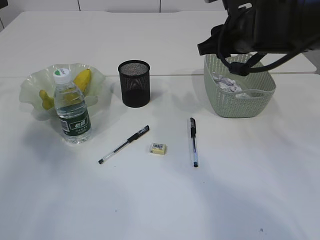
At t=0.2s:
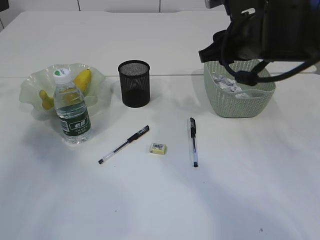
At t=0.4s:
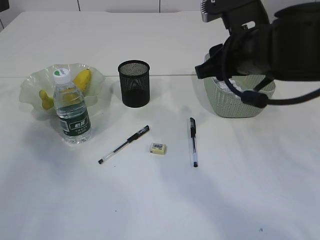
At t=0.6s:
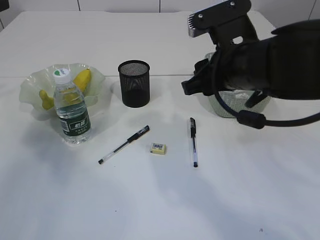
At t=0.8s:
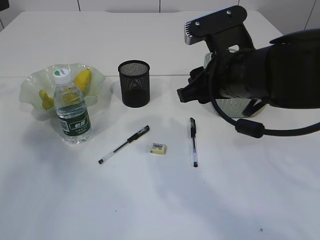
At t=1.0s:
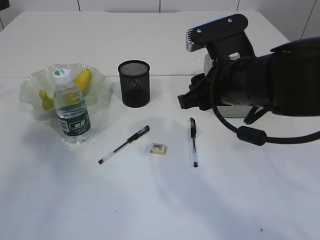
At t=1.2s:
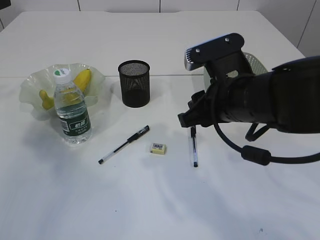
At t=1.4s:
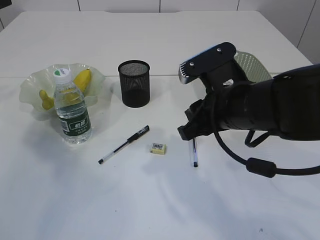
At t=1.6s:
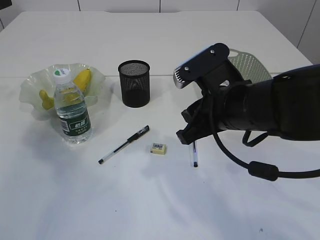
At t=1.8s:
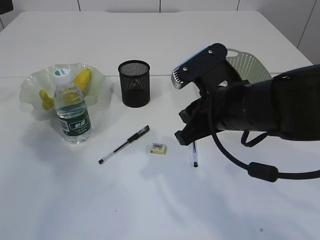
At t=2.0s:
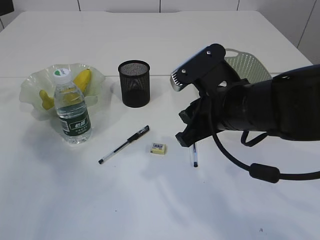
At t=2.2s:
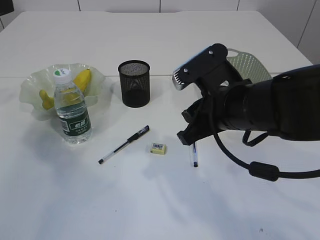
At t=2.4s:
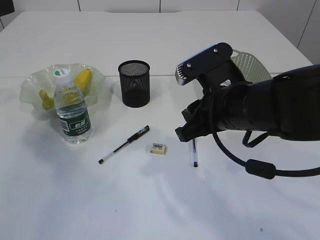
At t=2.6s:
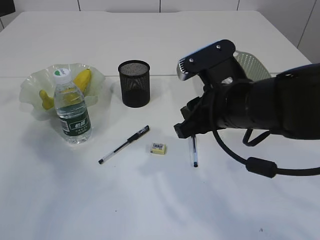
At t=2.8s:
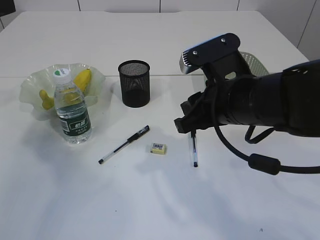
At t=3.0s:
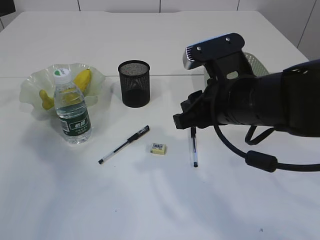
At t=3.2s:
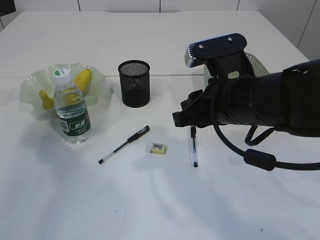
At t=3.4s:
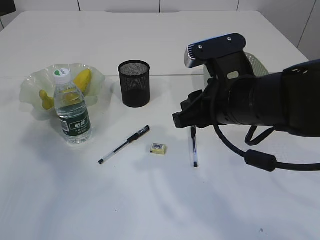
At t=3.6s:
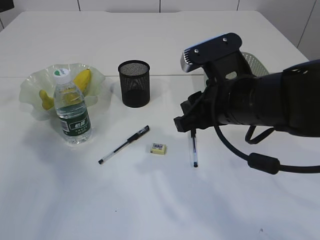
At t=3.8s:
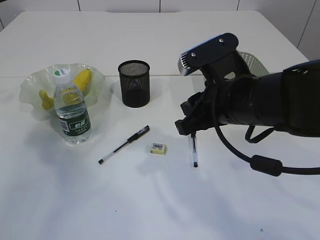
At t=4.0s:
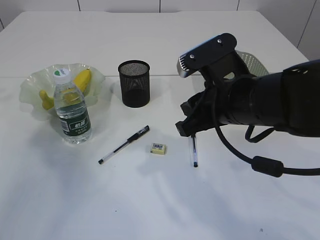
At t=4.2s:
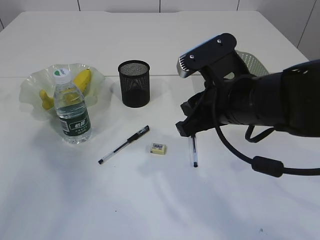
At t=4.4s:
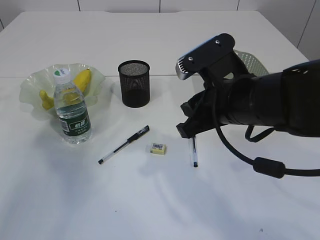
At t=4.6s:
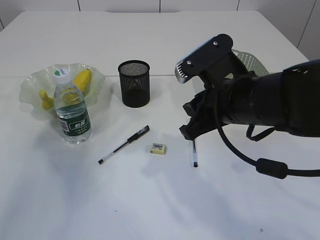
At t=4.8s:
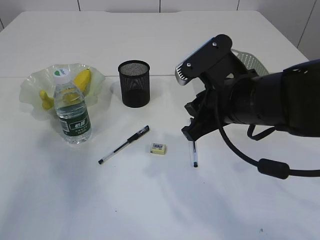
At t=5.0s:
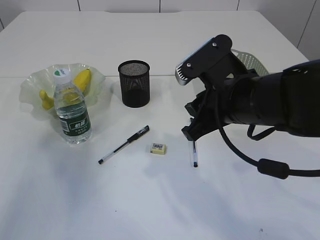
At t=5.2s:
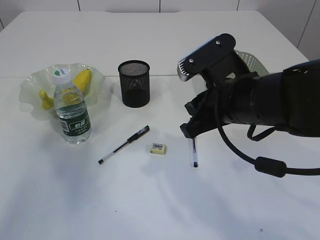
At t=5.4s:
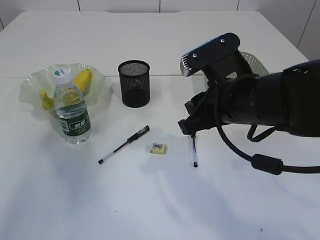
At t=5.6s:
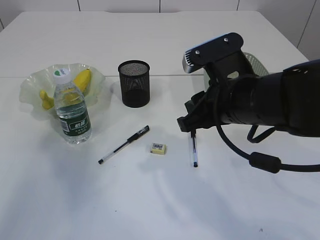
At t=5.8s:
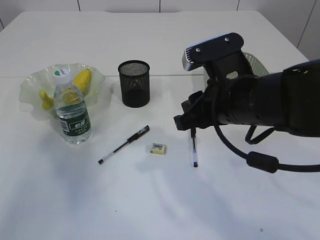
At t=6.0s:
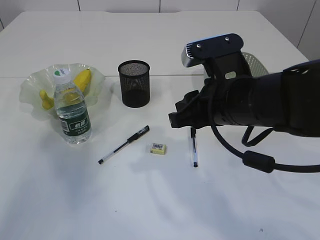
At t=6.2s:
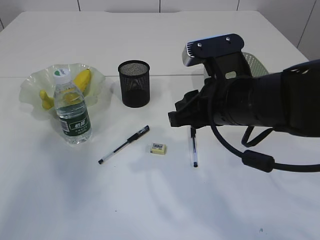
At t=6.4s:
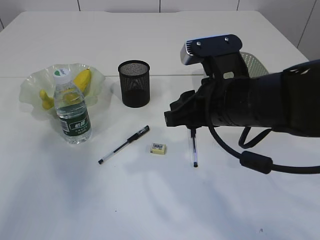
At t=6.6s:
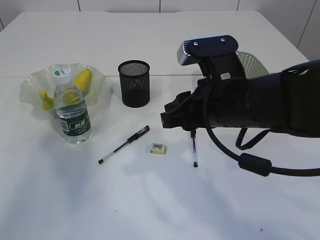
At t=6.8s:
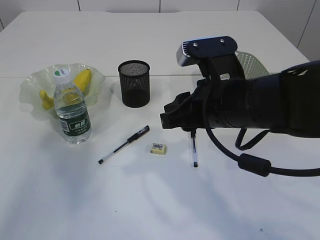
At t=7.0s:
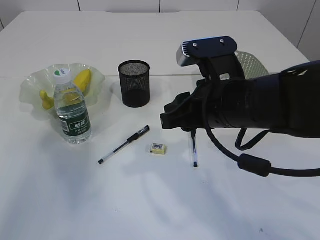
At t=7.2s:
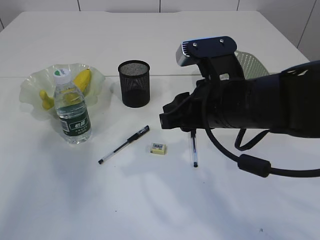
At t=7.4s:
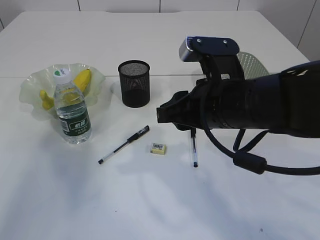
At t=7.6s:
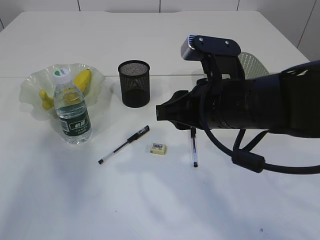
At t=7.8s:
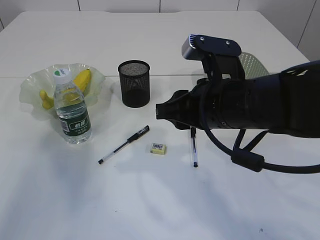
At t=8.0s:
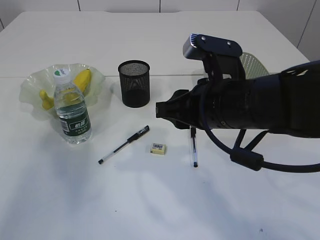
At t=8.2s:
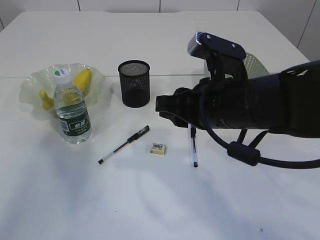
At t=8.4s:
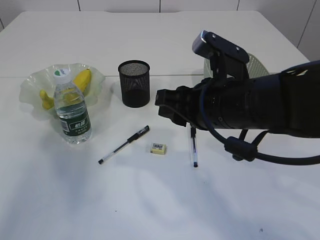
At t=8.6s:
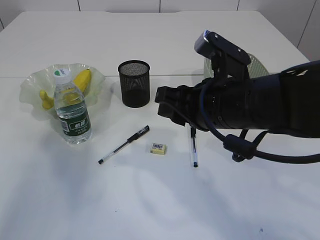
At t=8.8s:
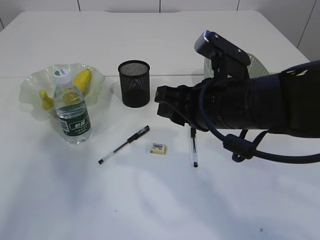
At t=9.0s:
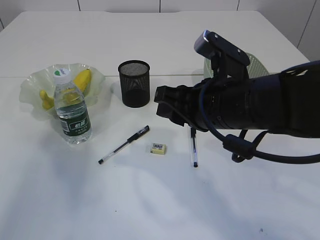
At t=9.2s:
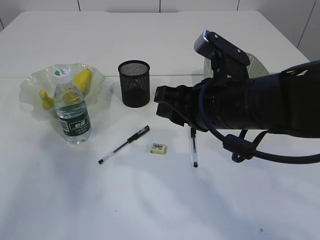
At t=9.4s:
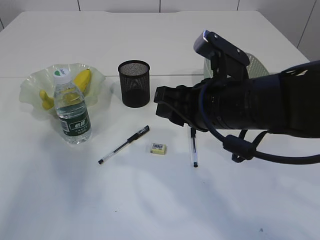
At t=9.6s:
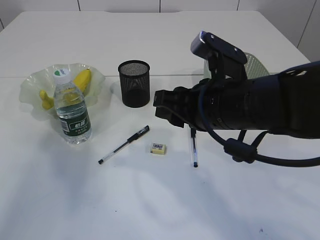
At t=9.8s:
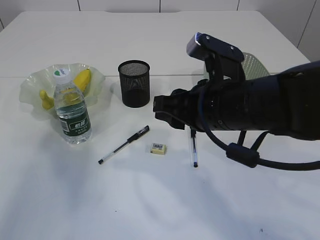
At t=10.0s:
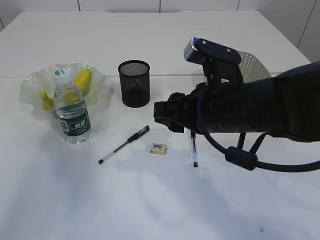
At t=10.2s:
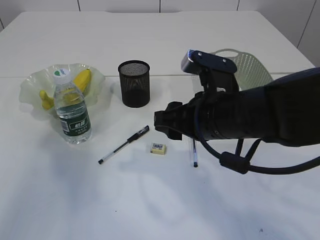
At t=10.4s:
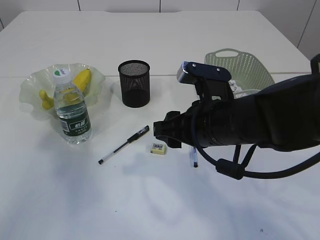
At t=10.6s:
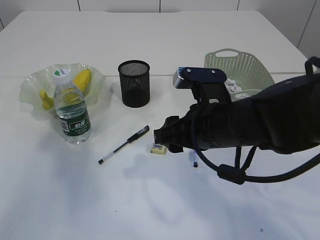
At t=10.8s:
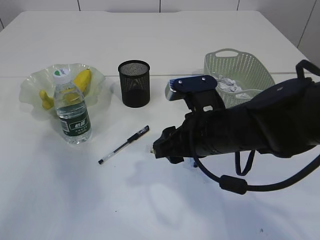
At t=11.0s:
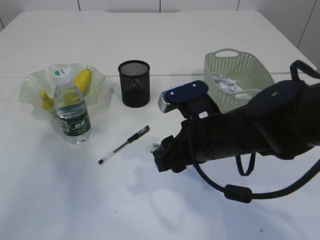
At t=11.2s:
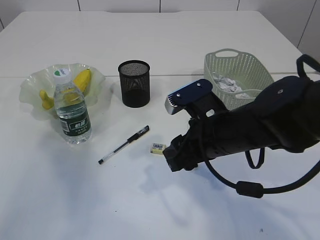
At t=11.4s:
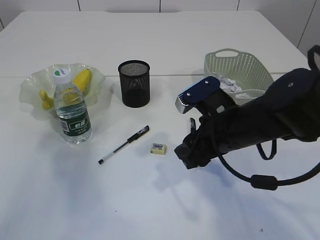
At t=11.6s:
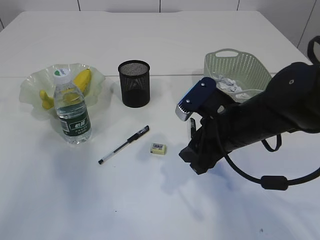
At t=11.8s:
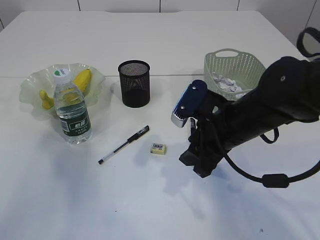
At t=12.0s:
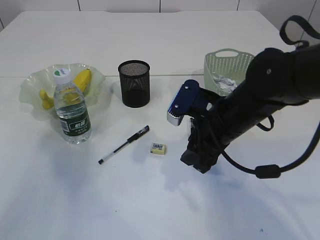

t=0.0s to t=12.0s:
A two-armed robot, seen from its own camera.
t=0.0s to t=1.6s: The right gripper is displaced backward and downward by approximately 10 cm.
t=1.6s to t=3.0s: The grippers move only a little.
t=3.0s to t=4.4s: The left gripper heads upward, covering roughly 5 cm.
t=4.4s to t=6.0s: The grippers stay close to where they were, moving slightly.
t=6.0s to t=7.6s: The grippers stay close to where they were, moving slightly.
t=9.0s to t=10.4s: The grippers stay close to where they were, moving slightly.

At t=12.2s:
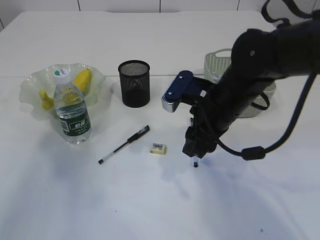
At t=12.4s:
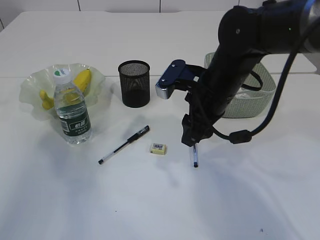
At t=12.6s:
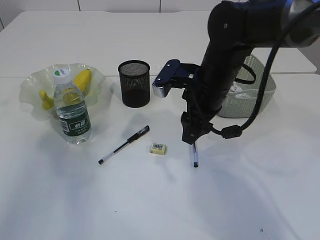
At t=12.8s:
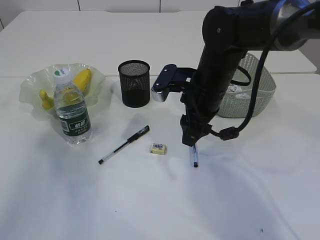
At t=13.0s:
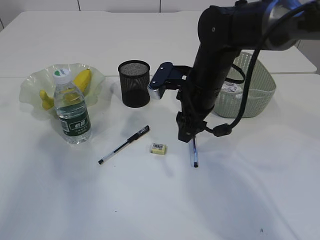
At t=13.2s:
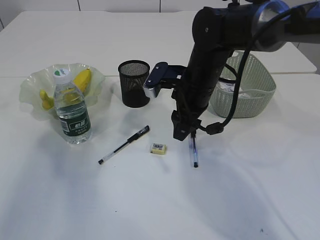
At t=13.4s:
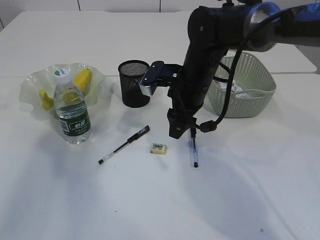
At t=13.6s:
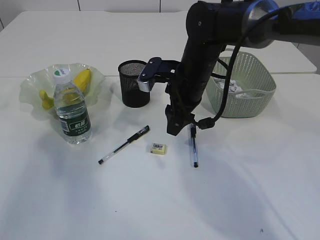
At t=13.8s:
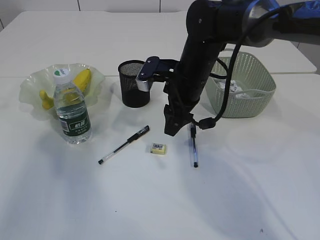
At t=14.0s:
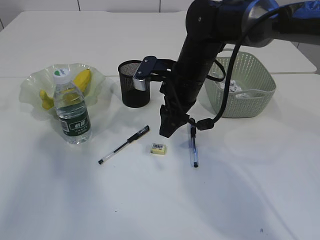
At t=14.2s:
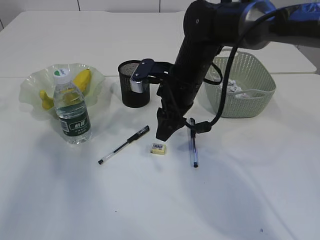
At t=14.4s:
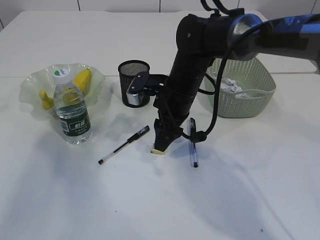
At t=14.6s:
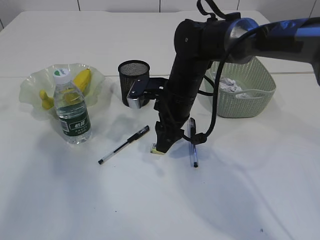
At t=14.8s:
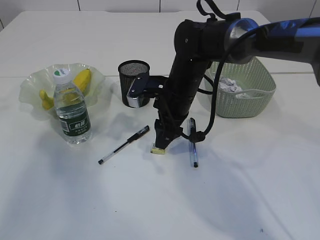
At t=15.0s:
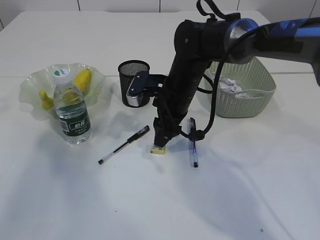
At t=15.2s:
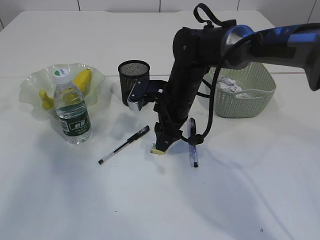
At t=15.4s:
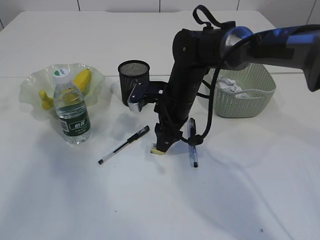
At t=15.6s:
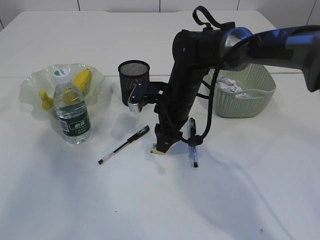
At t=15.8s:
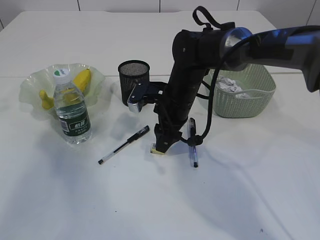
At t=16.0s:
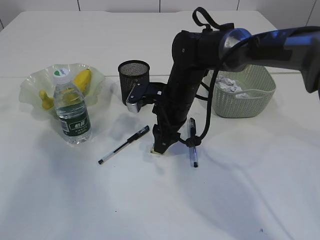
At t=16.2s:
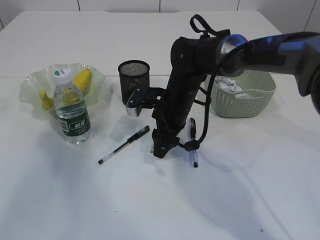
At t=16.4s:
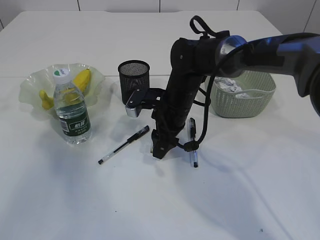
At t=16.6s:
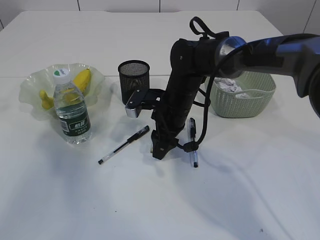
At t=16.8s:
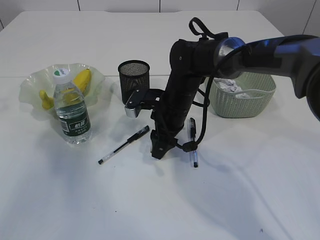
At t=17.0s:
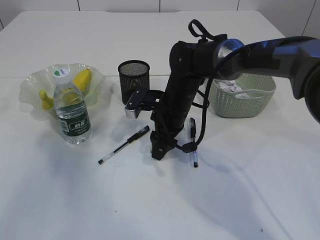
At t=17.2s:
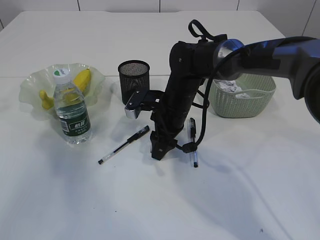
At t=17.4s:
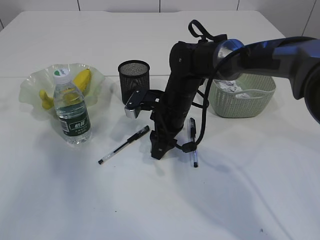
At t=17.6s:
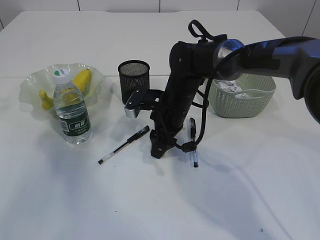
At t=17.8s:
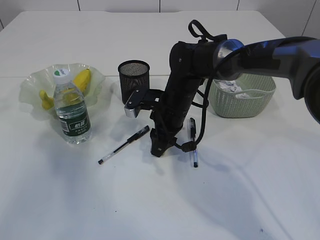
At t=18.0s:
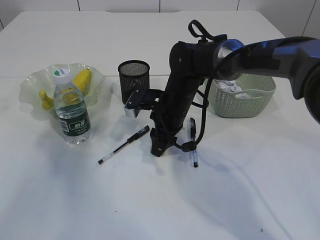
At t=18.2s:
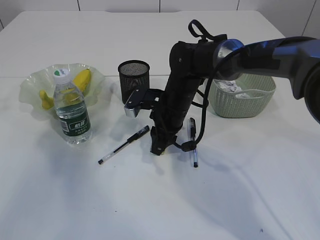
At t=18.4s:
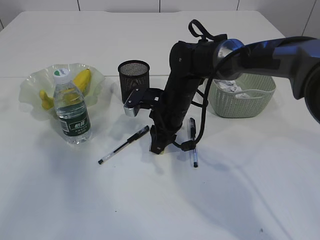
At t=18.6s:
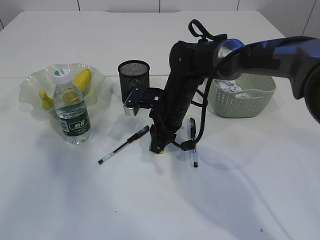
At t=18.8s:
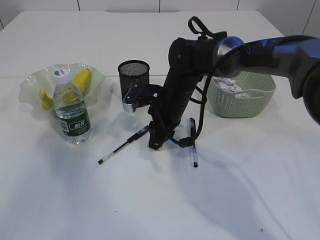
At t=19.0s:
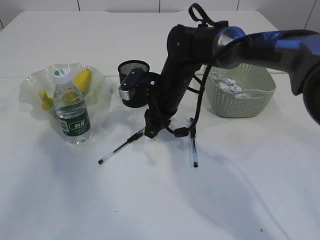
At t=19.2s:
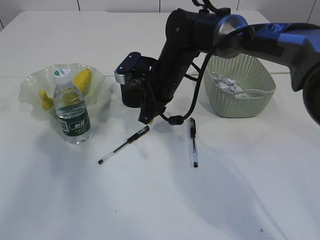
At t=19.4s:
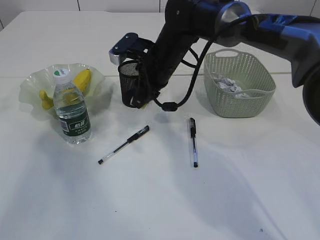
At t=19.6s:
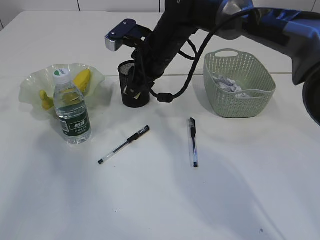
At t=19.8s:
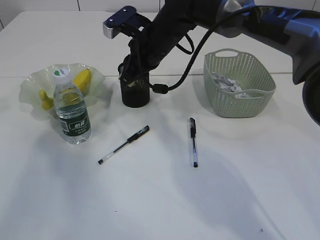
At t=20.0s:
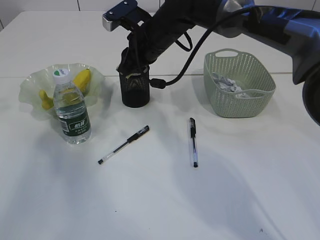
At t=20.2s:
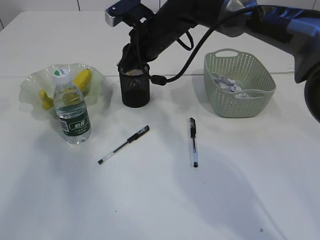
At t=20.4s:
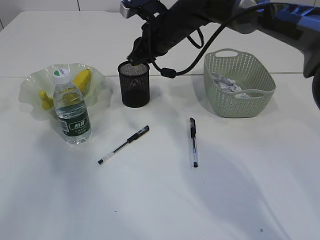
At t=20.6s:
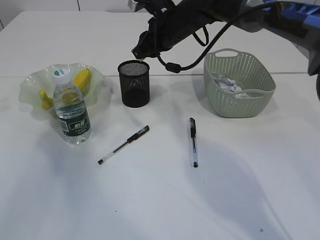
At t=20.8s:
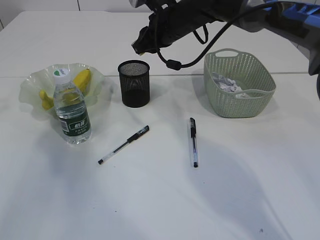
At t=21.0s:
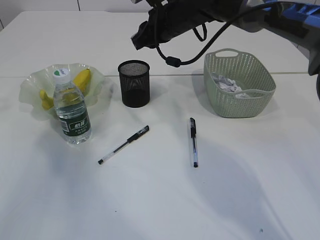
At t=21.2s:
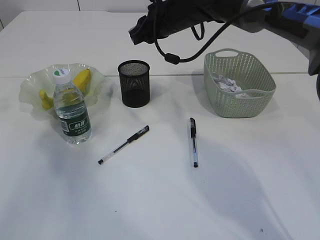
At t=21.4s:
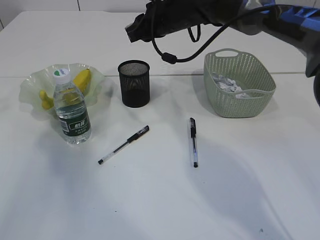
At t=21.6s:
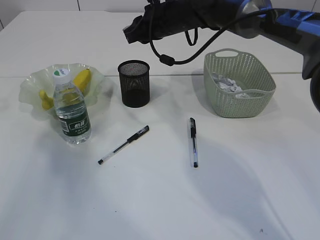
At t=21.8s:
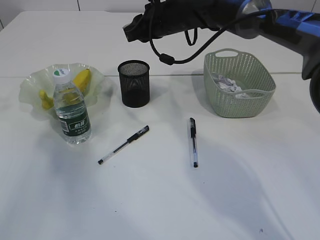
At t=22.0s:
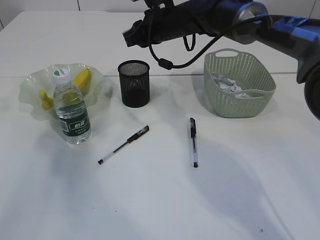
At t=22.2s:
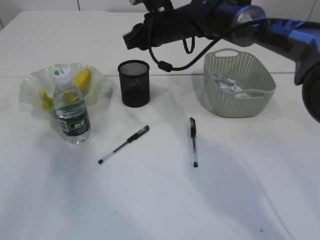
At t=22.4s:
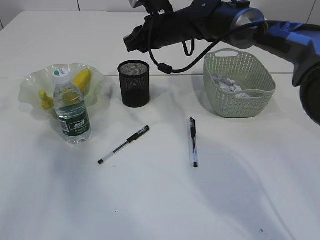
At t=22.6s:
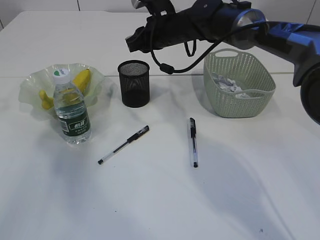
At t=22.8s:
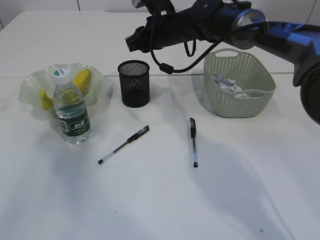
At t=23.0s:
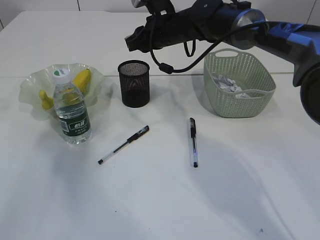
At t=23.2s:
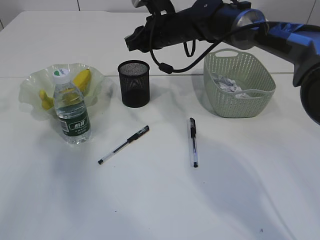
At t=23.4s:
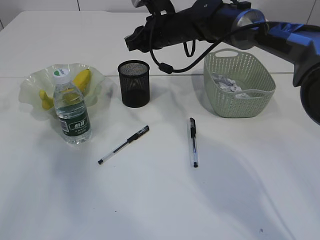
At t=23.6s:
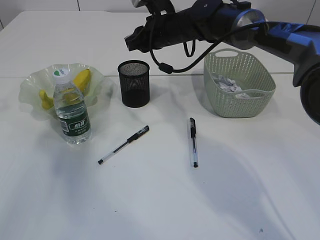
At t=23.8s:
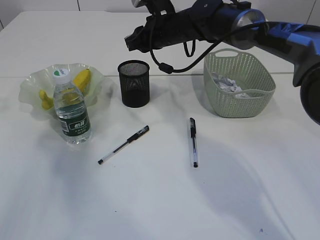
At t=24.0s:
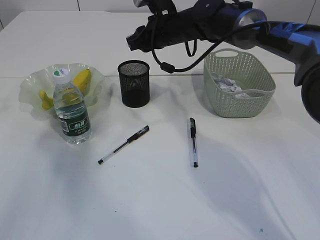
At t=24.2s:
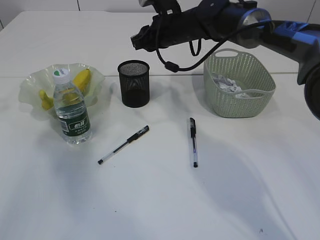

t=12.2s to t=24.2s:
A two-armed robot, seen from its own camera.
Step, t=12.2s to t=18.8s: Pick up the eraser.
t=12.2s to t=13.8s: The right gripper shifts some 10 cm forward.
t=13.8s to t=15.2s: The grippers stay close to where they were, moving slightly.
t=15.2s to t=16.6s: The grippers move only a little.
t=16.6s to t=18.2s: Both grippers stay about where they are.
t=18.2s to t=19.8s: The right gripper moves upward, some 10 cm.
t=19.8s to t=21.2s: The right gripper ends up about 5 cm from where it was.
t=21.2s to t=22.6s: The grippers make only small movements.
t=22.6s to t=24.2s: Neither gripper changes place.
